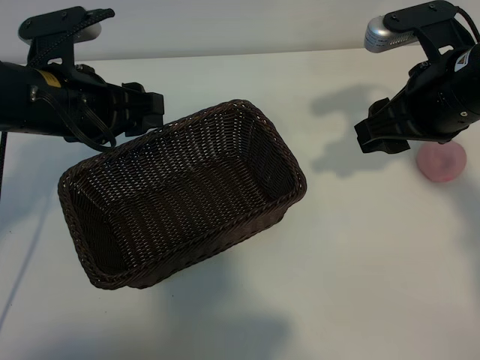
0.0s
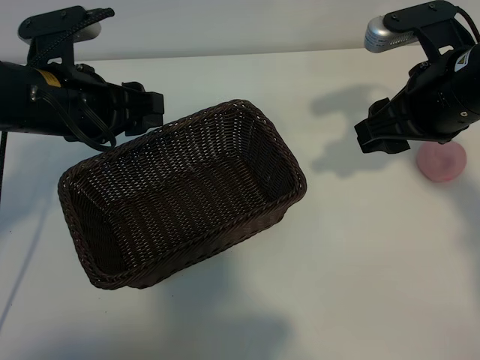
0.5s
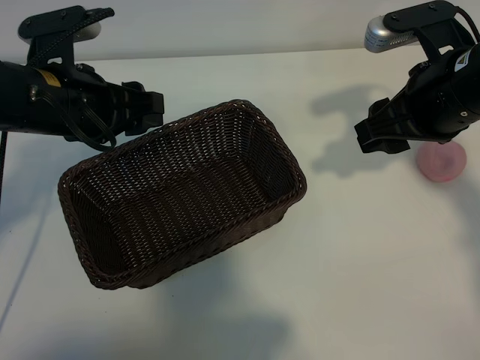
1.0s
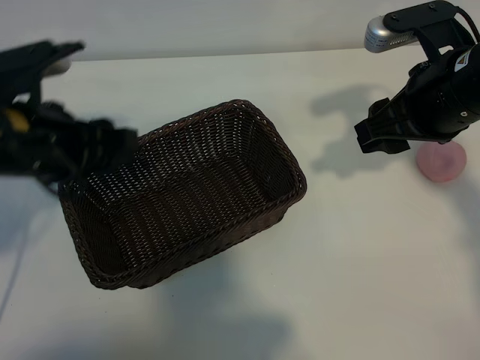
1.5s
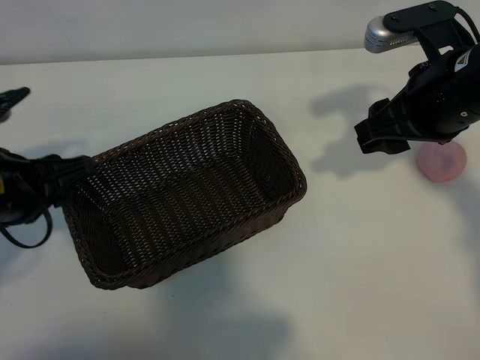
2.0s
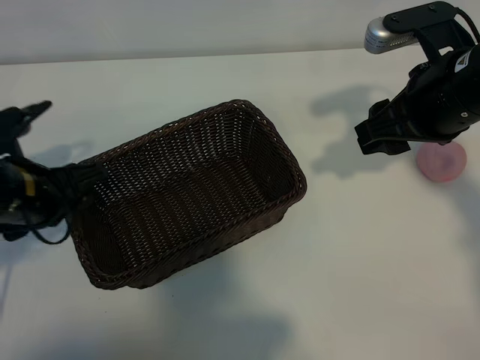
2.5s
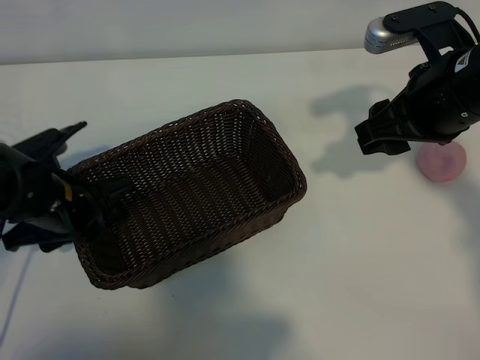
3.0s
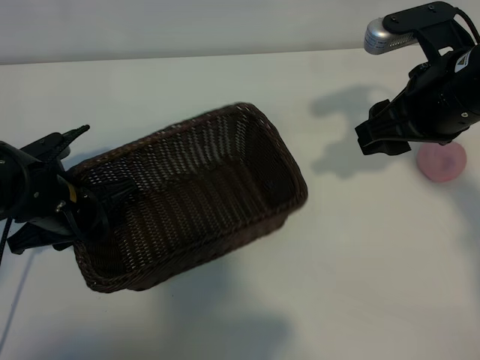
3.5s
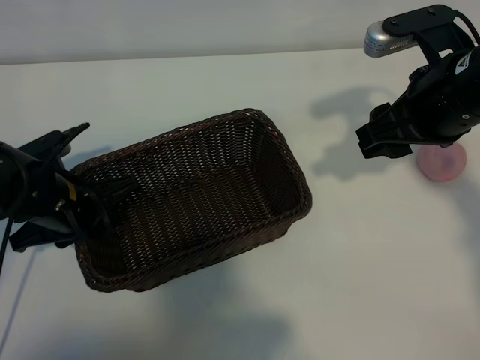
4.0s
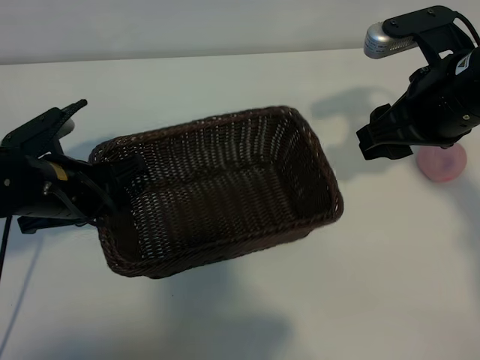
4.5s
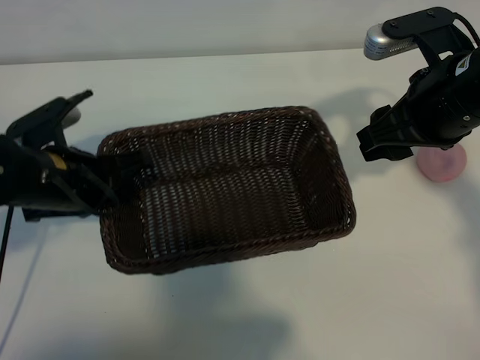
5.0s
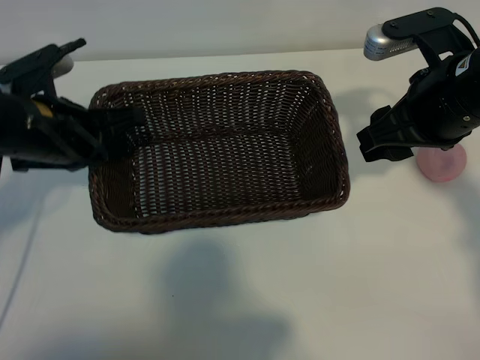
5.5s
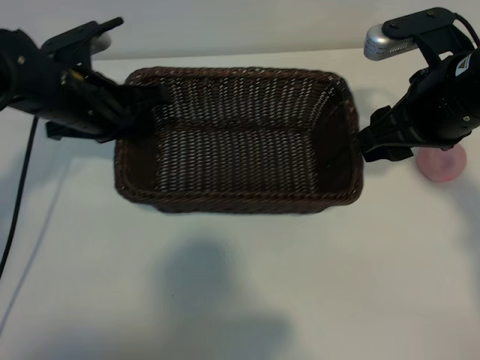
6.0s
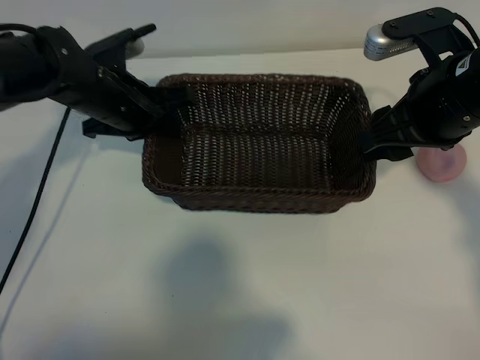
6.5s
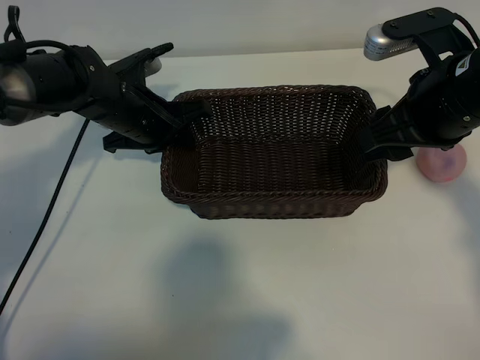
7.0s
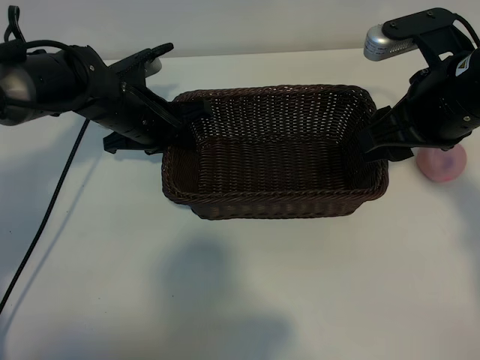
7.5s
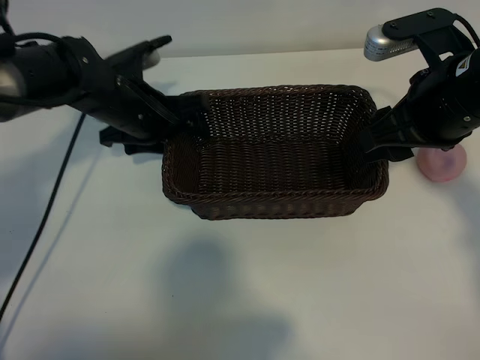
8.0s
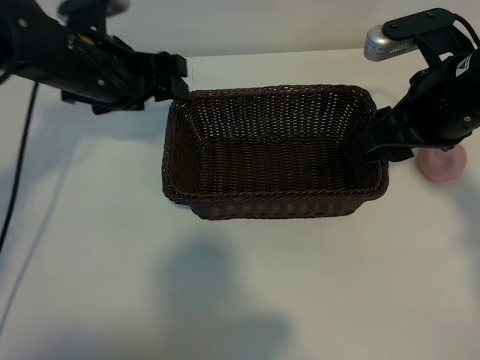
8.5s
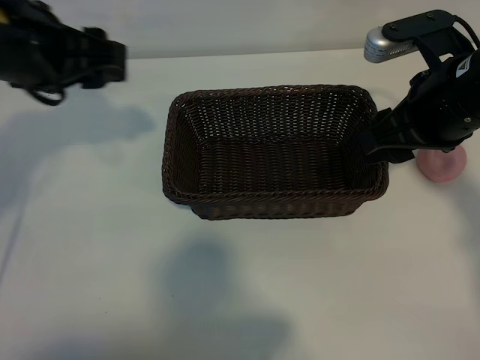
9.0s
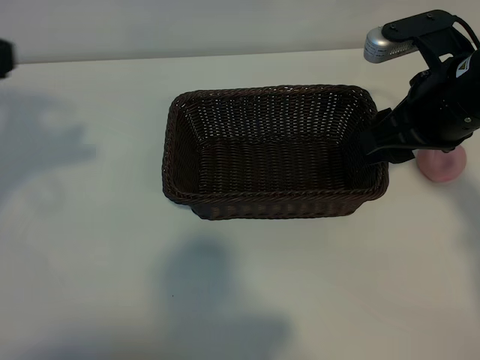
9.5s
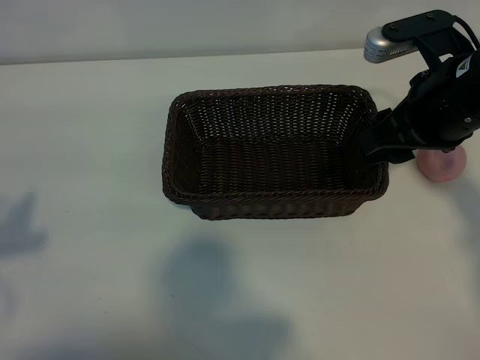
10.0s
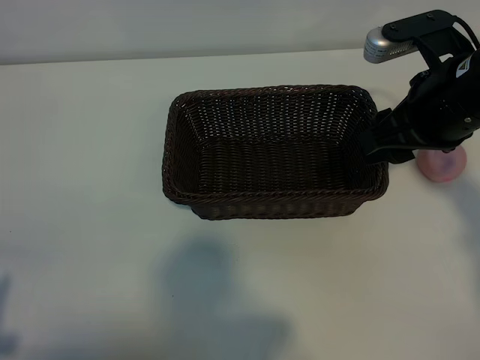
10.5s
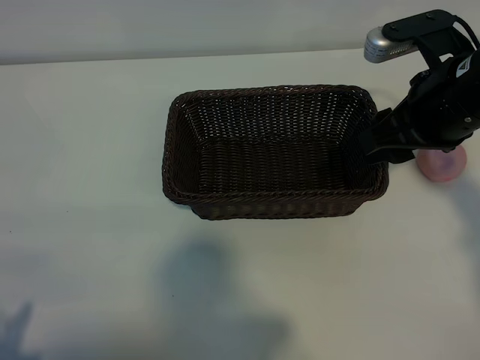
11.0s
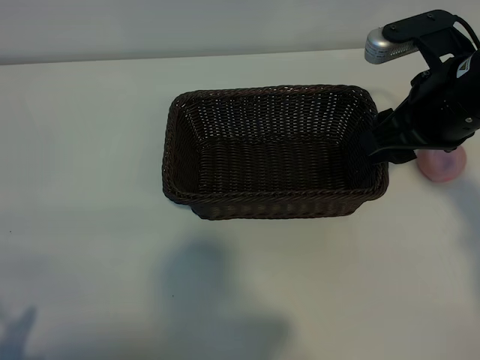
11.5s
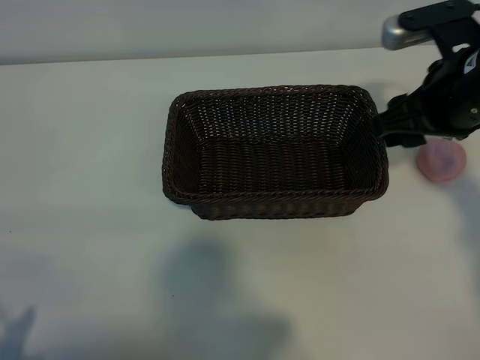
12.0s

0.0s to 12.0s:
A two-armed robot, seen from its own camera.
Task of the whole recording: pick up the peach and put it into the basket.
Step, 1.5s to 3.5s: Grasp the basket with left gripper.
Step, 4.0s to 8.0s: Place the basket in the center of view with left gripper.

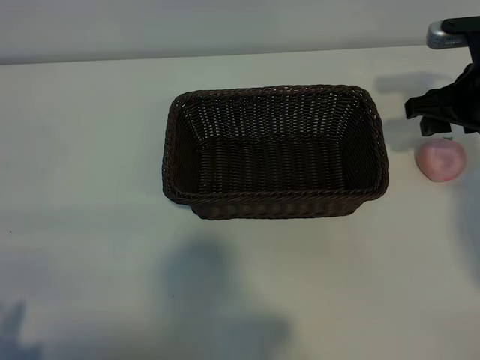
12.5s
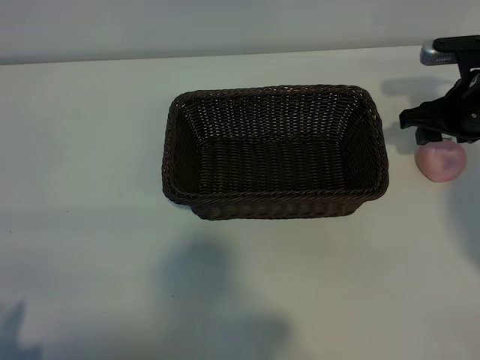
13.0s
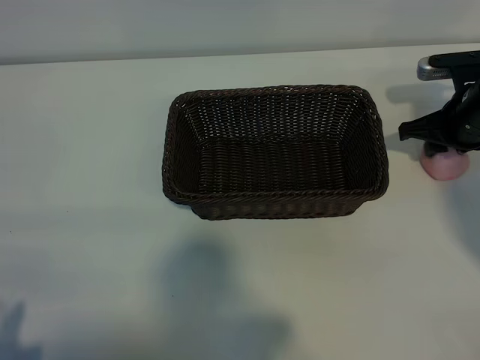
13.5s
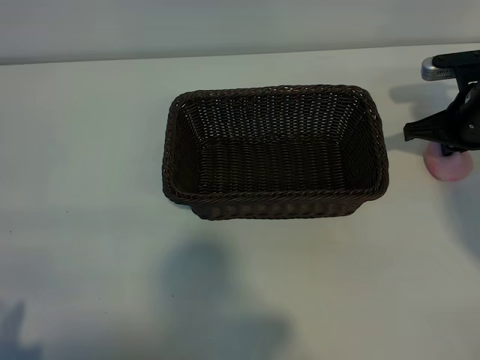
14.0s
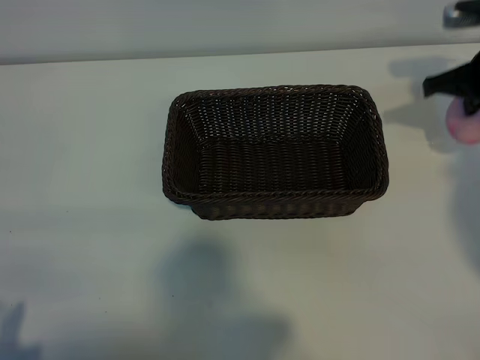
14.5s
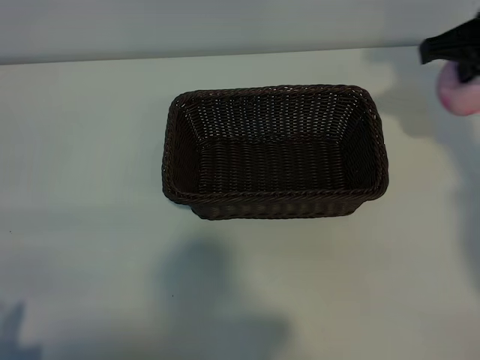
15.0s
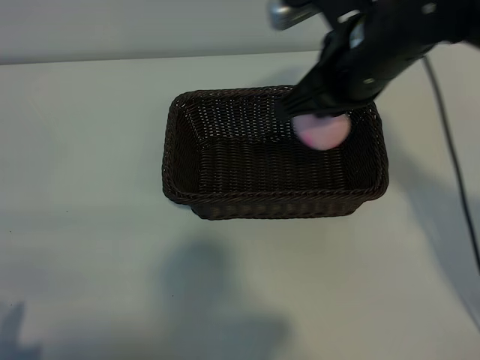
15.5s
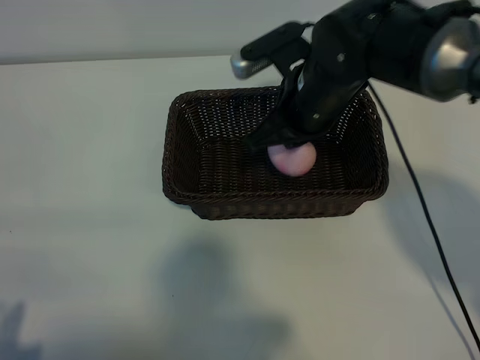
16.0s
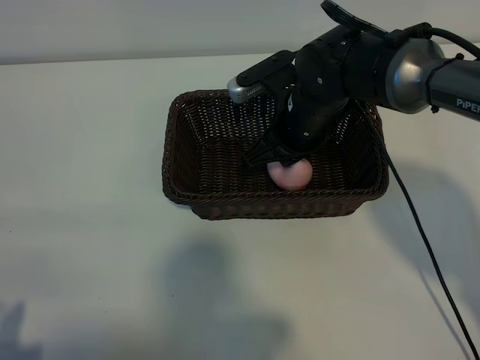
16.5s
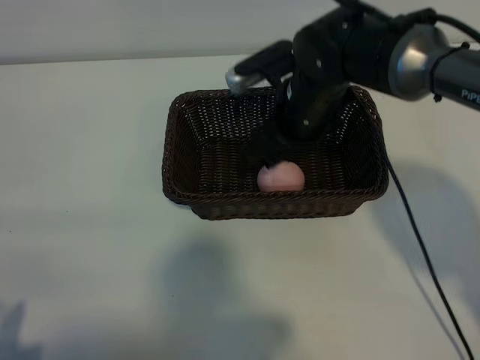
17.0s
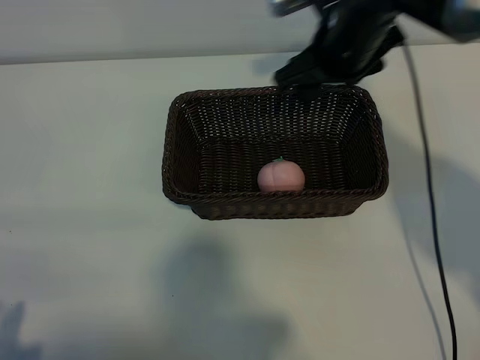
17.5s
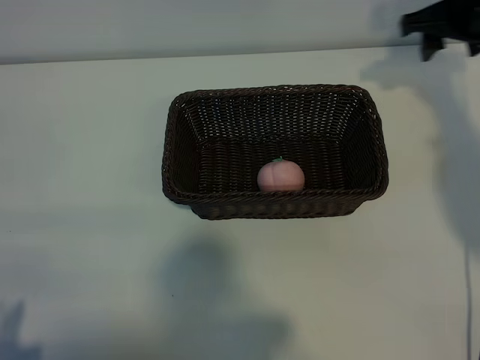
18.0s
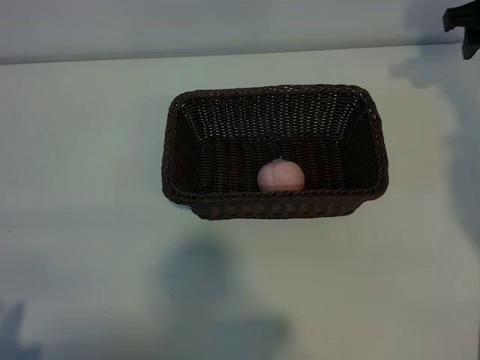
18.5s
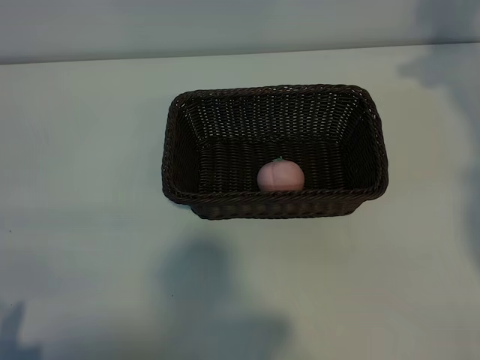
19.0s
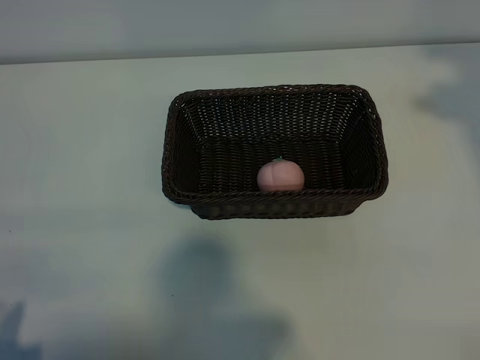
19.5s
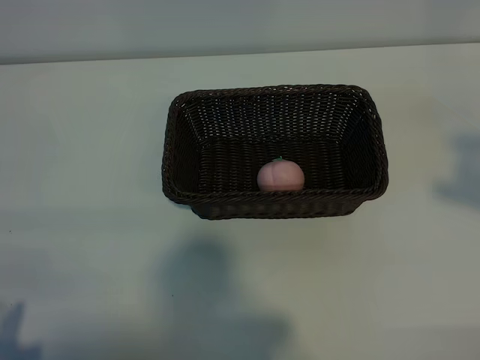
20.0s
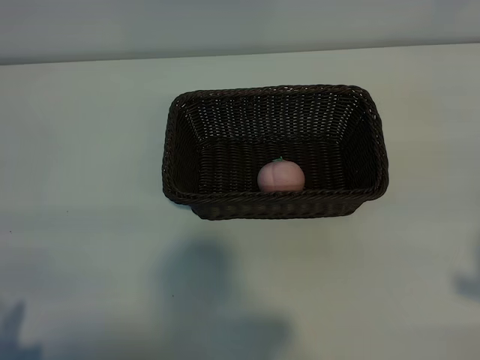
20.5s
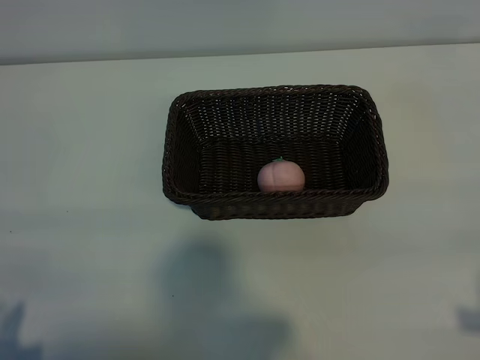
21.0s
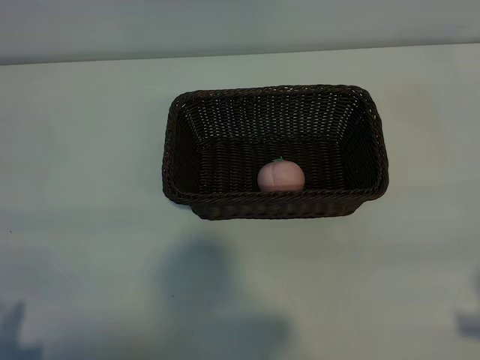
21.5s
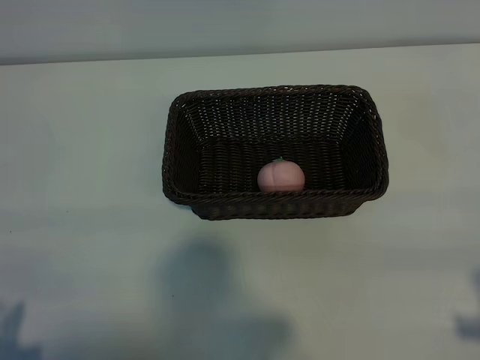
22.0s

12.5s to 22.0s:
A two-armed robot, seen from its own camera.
Task of the whole recording: pick up the peach and put it into the basket.
Step, 14.5s to 17.0s: Place the peach in the basket with right gripper.

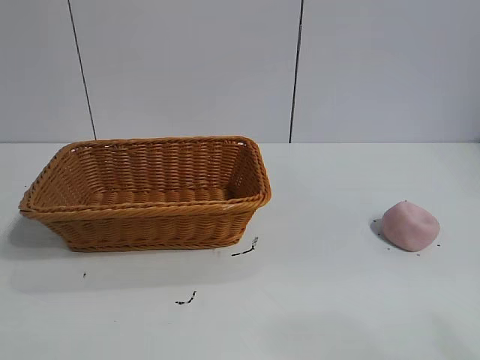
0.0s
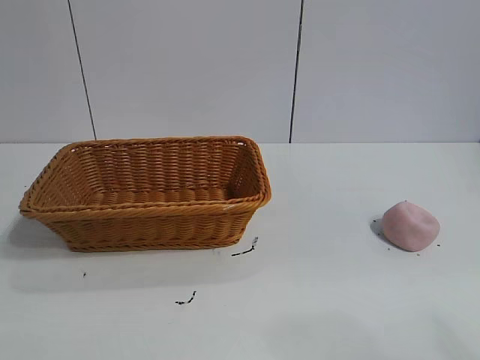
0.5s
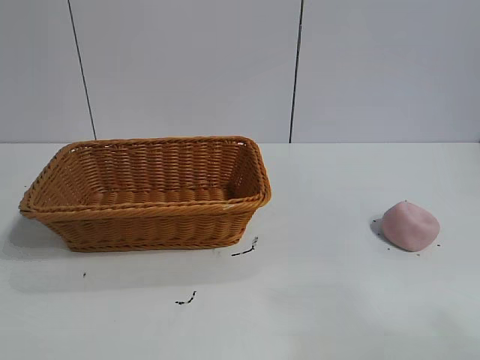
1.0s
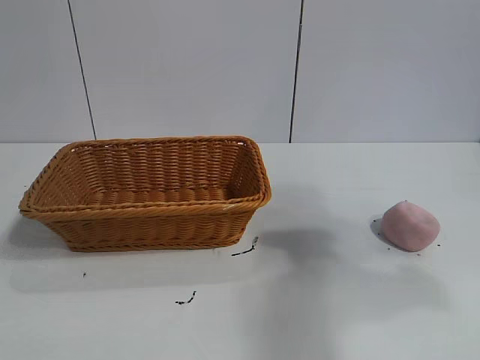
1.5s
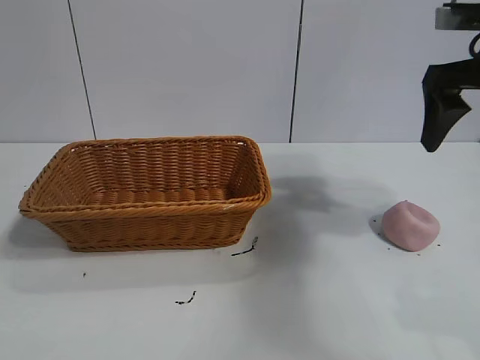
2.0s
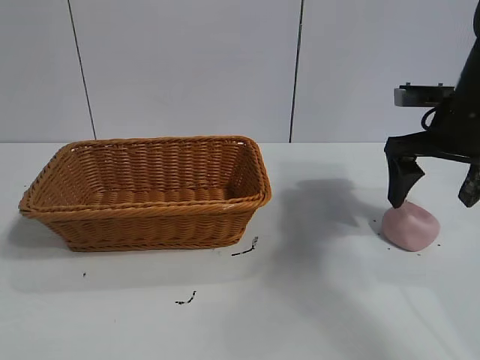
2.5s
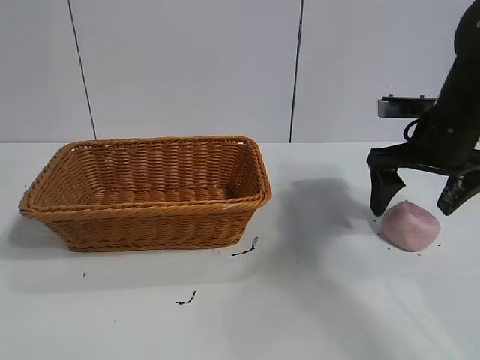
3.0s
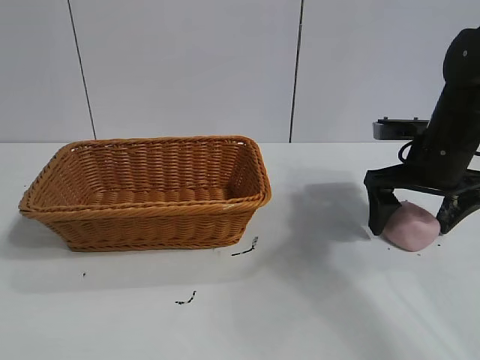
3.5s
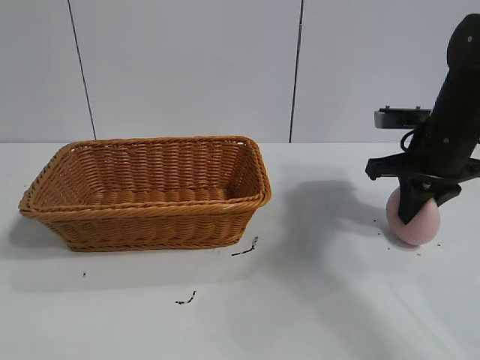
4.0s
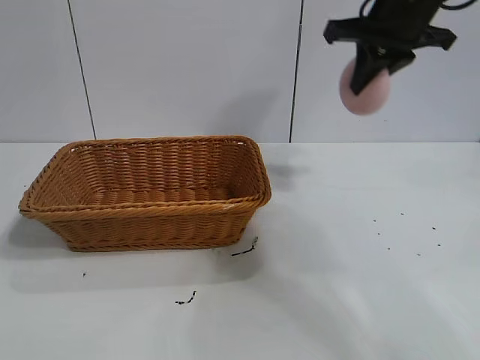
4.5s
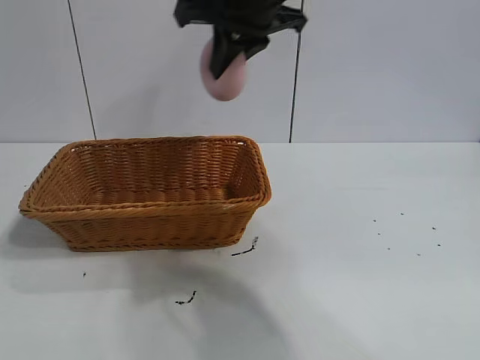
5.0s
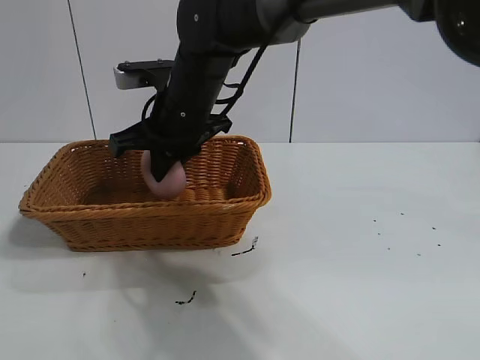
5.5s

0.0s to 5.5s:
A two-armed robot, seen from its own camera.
Task of the whole recording: pick up the peach and put it into the basket.
Step, 1.0s to 3.5s: Grasp the peach with right gripper.
